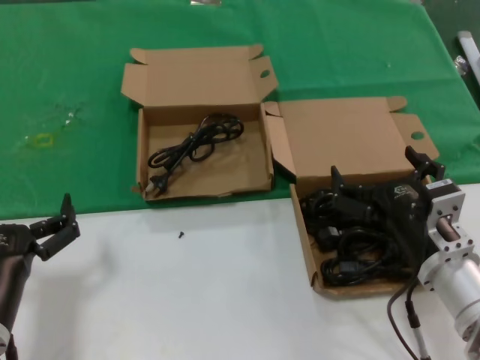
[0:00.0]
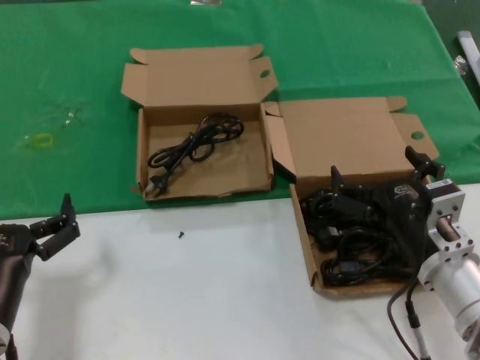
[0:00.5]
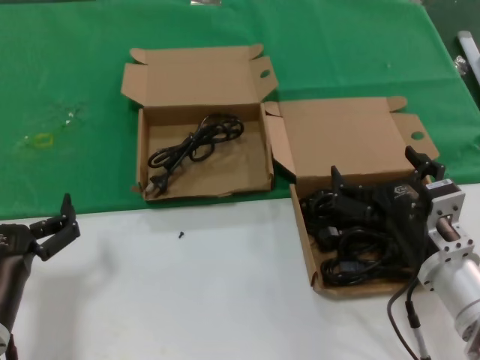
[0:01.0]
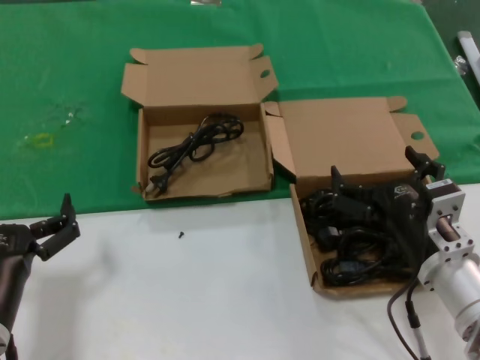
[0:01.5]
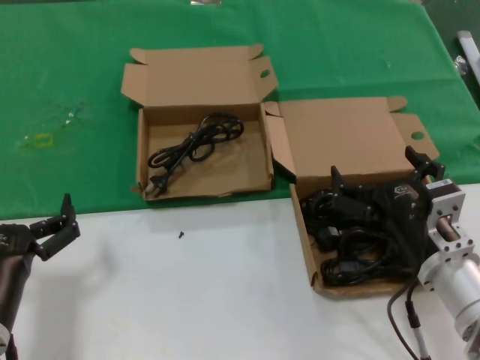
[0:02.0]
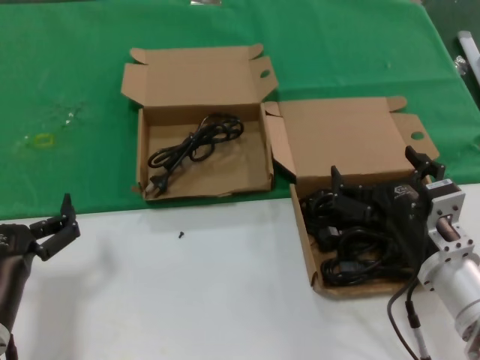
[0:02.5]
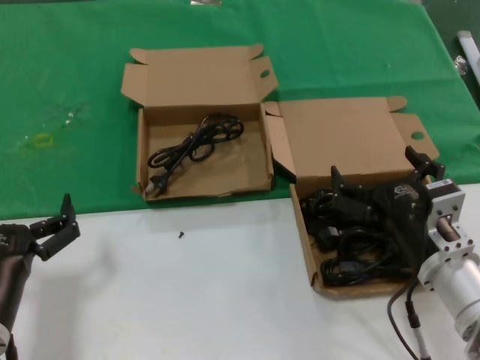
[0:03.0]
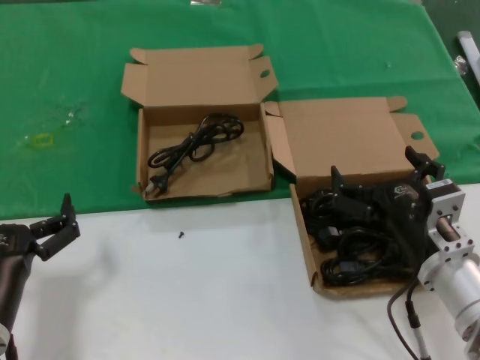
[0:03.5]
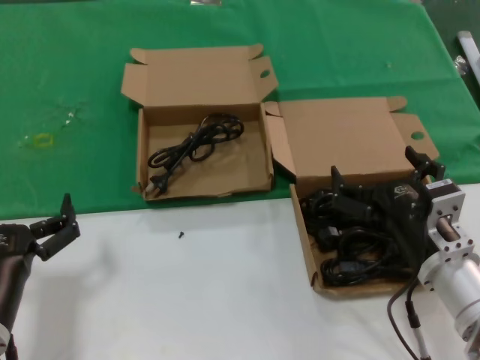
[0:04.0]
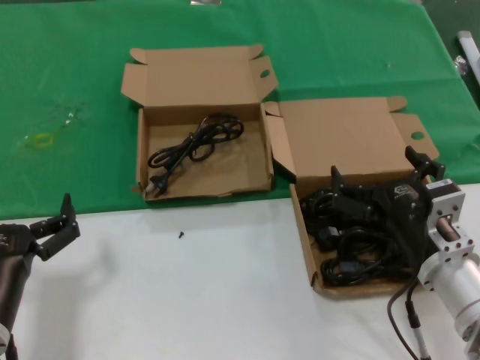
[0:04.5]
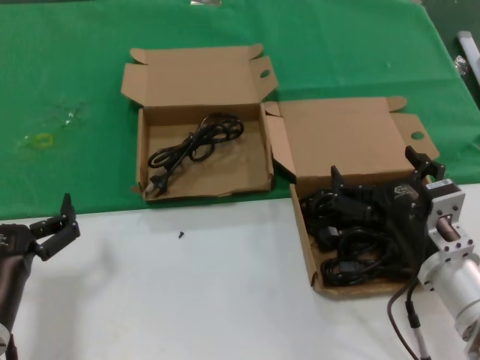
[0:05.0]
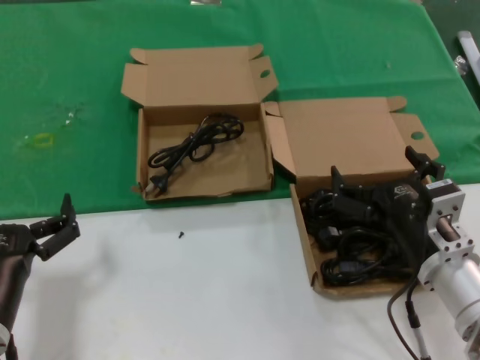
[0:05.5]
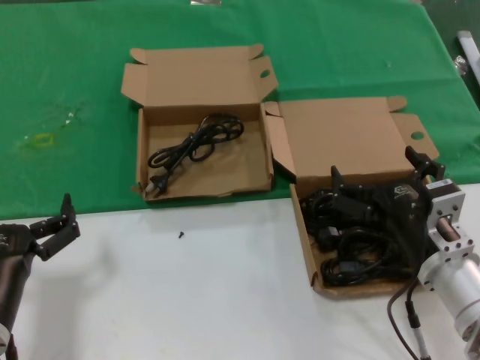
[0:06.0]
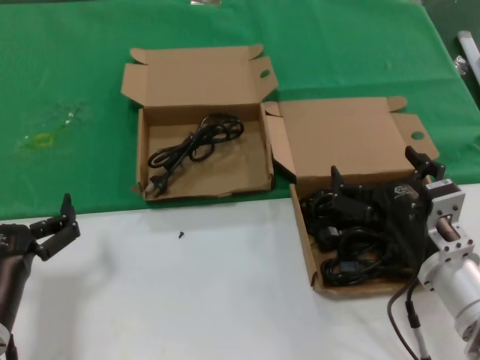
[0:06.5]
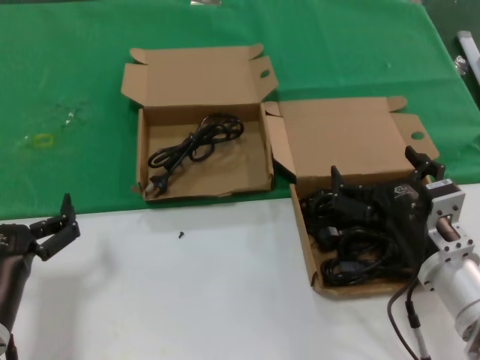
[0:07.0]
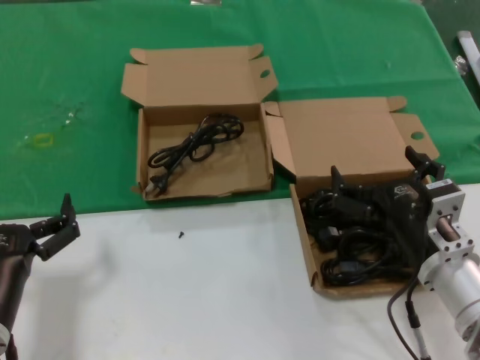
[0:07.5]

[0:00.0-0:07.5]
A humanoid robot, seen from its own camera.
Task of the whole recording: take the parts from the box containing them and put them into an empty box.
0:00.0 to 0:07.5: Both hands stay put.
